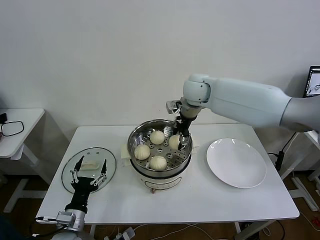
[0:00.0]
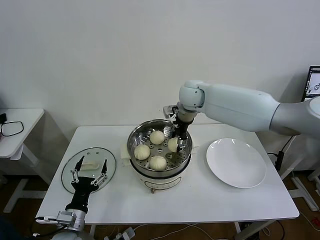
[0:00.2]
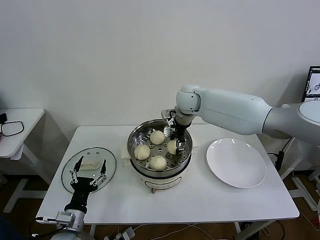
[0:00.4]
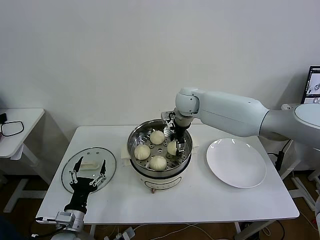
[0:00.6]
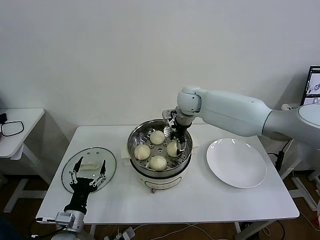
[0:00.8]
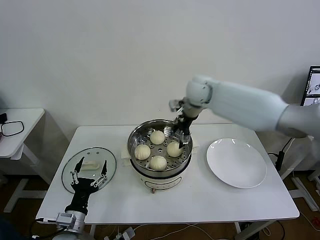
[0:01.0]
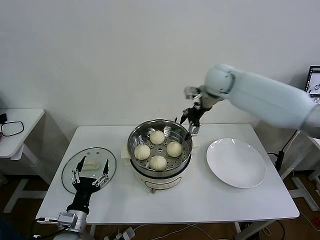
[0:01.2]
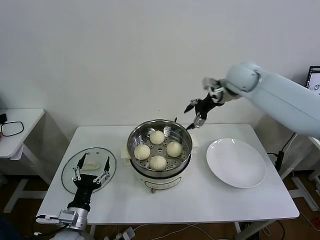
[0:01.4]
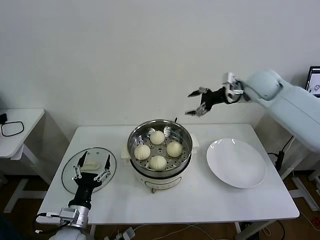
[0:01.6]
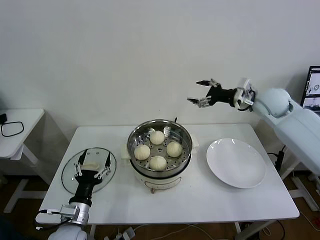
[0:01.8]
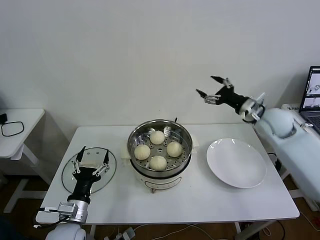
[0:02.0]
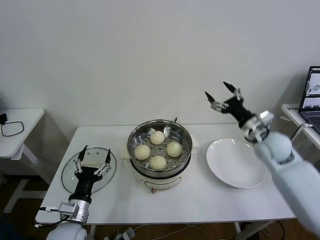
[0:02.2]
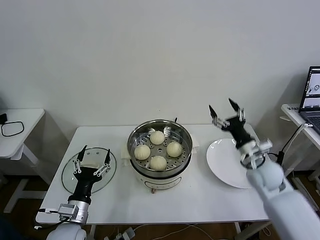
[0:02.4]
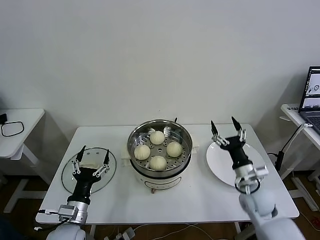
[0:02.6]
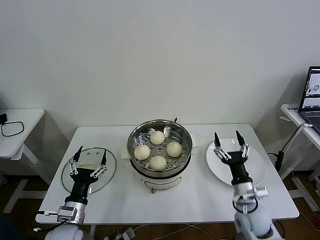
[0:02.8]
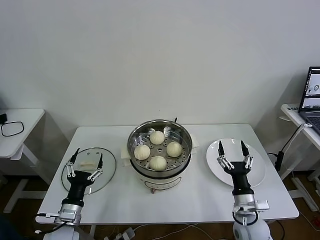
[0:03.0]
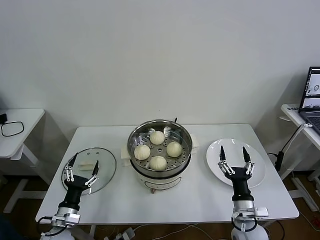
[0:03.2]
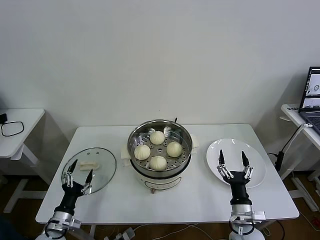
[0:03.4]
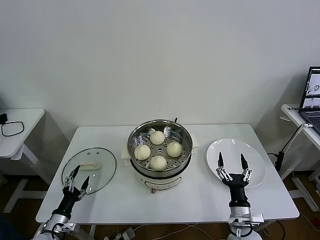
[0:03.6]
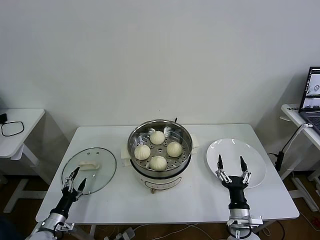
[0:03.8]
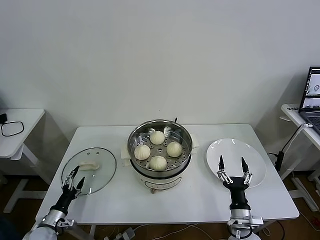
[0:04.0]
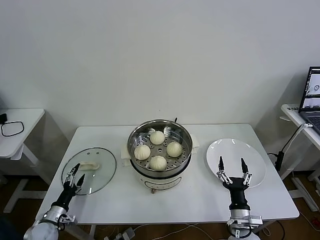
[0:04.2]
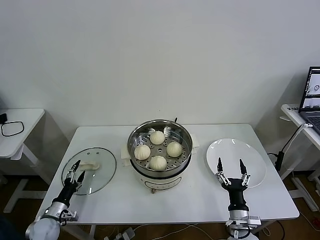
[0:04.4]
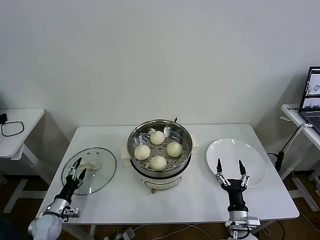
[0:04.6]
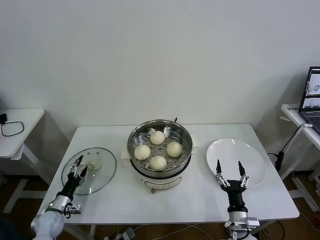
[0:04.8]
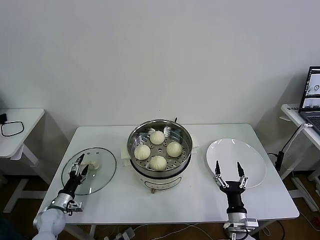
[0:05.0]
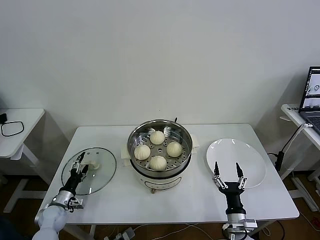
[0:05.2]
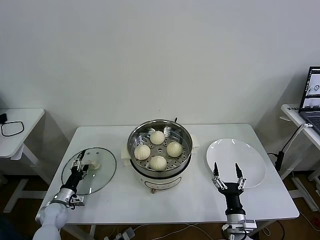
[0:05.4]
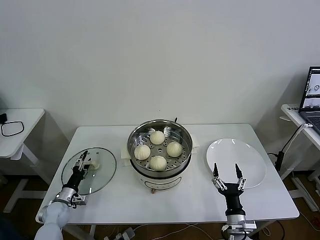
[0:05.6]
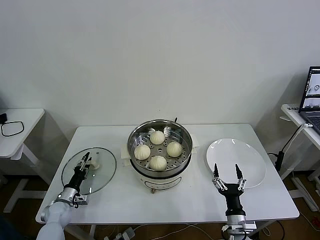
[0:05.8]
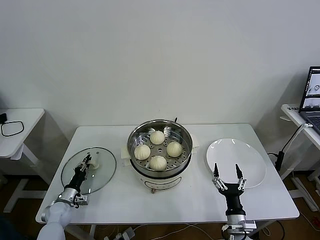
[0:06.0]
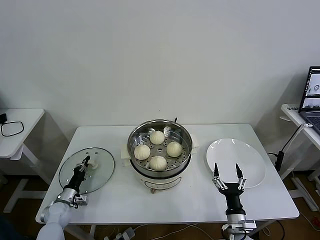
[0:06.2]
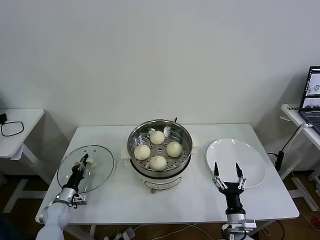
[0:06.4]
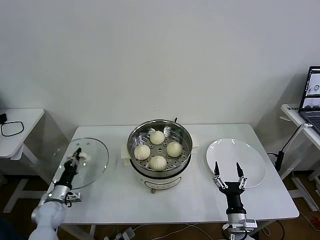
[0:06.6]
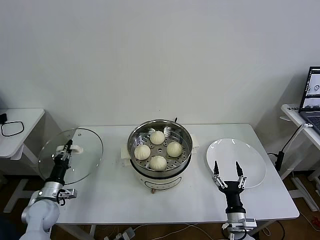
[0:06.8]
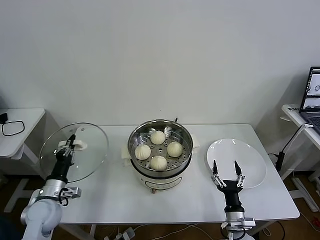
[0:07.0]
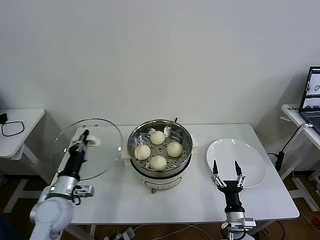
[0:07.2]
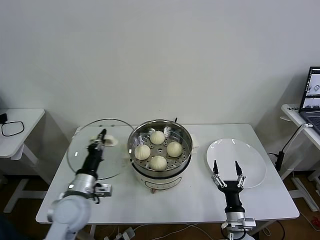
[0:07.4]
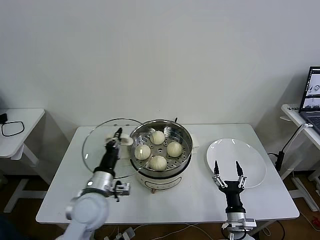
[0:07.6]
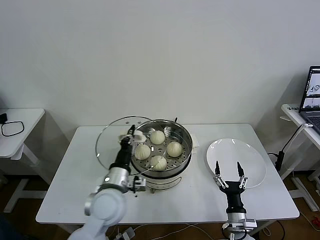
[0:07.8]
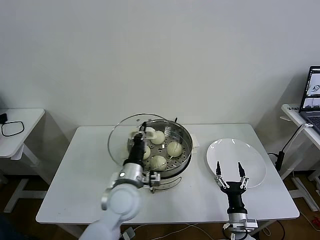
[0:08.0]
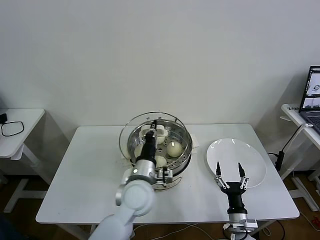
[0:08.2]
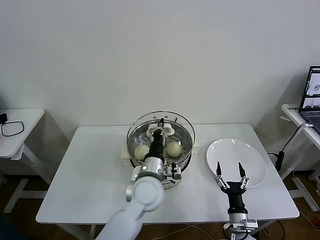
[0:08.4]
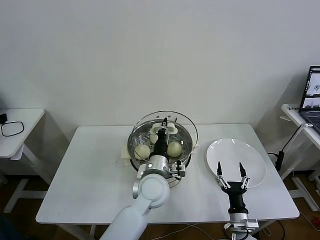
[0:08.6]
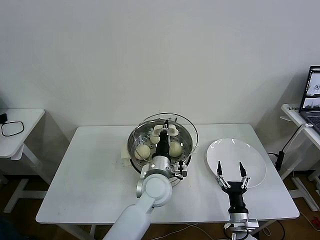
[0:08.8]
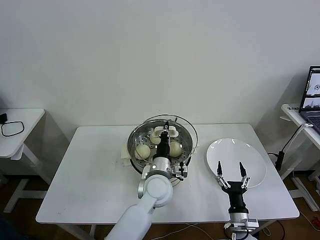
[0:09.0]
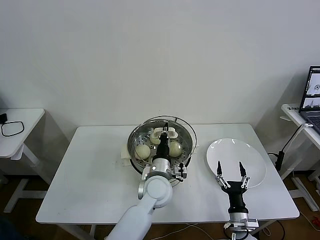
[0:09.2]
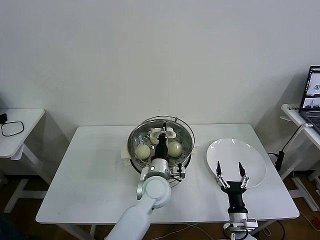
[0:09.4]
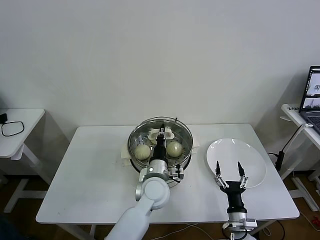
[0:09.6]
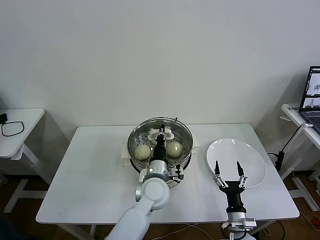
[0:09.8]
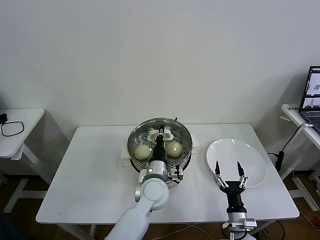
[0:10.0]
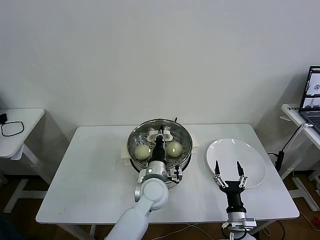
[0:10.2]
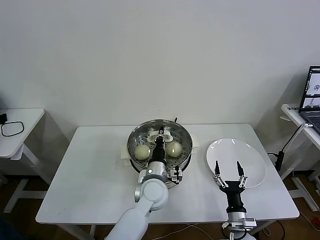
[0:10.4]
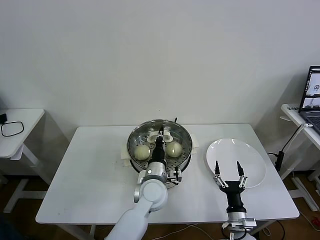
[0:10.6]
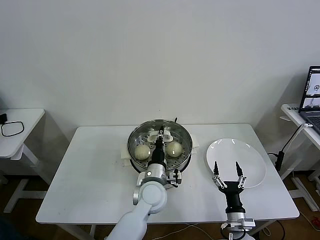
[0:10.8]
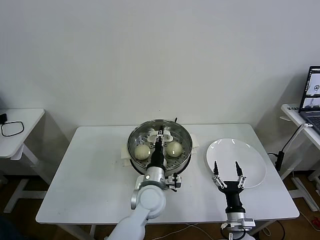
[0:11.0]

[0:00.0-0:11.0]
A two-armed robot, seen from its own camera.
Task of the whole recording: take steamed baozi put them in steamer then cover it.
Step, 0:00.8 to 0:06.2: Grasp the pot lid with left gripper.
Step, 0:06.4 to 0:11.0: Place the pot lid on the steamer with left gripper.
0:00.0 to 0:01.6: The right gripper heads to the right, covering about 20 cm, and opens its fingers.
0:01.6 to 0:03.2: The left gripper goes roughly 5 cm to the left. Meanwhile the right gripper shifts approximately 50 cm downward and backward.
0:03.2 to 0:04.8: The right gripper moves downward, about 5 cm. Meanwhile the left gripper travels to the left, downward and forward by approximately 15 cm.
0:04.8 to 0:06.2: The left gripper closes.
0:06.2 to 0:07.8: The left gripper travels to the right and upward by some 35 cm.
0:07.8 to 0:09.4: The left gripper travels to the right and forward by approximately 15 cm.
0:09.4 to 0:11.0: The left gripper opens up.

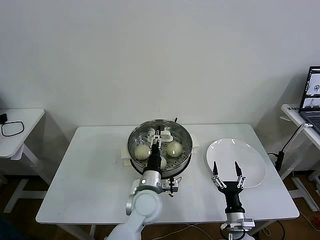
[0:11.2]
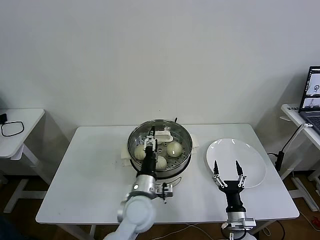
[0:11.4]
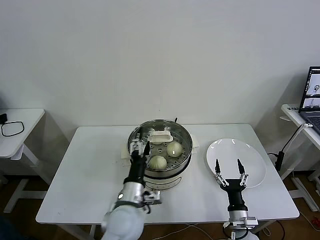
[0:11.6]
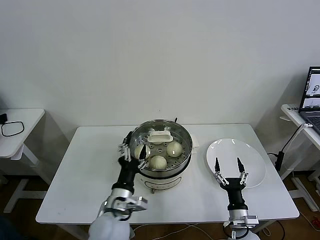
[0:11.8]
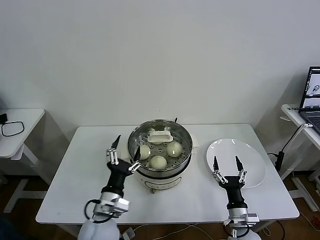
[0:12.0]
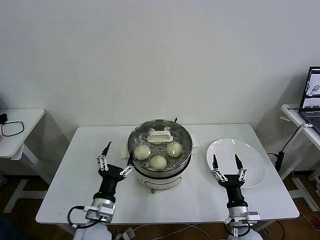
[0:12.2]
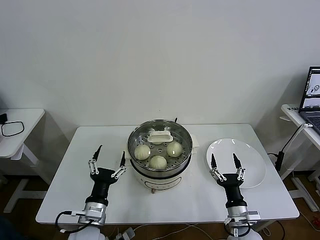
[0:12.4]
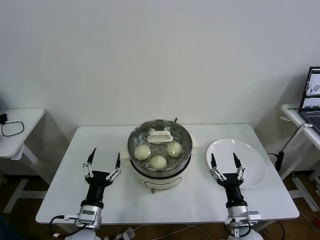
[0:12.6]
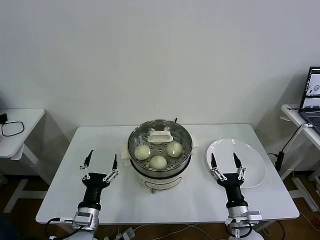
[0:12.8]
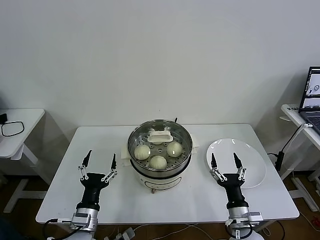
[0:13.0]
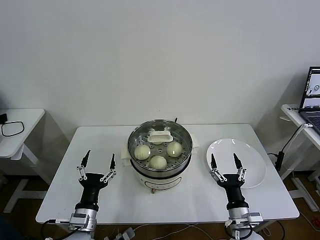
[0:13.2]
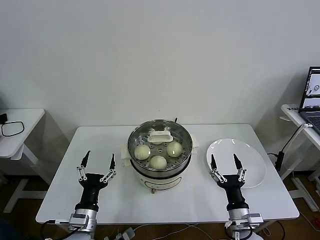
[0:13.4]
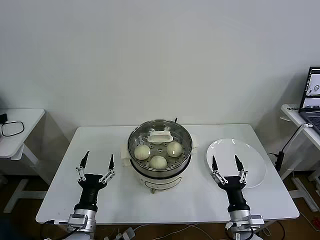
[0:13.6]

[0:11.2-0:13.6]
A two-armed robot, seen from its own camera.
Task of the whole recording: take steamed baozi put them in steamer then cover it.
0:11.2 to 0:12.4: The right gripper moves upward, approximately 5 cm, while the left gripper moves to the left and backward, some 20 cm.
0:12.4 to 0:13.6: The grippers make only small movements.
